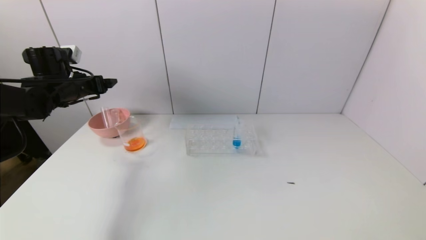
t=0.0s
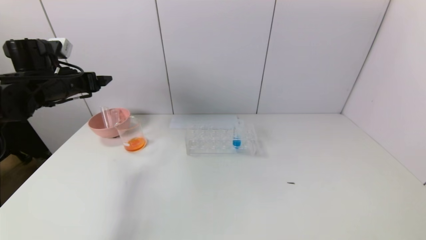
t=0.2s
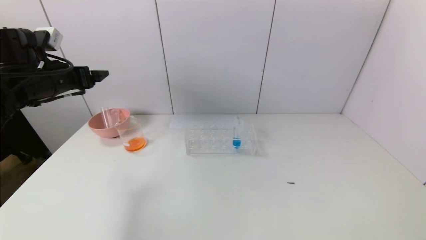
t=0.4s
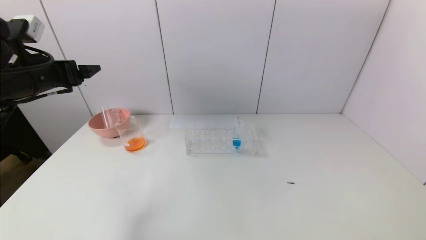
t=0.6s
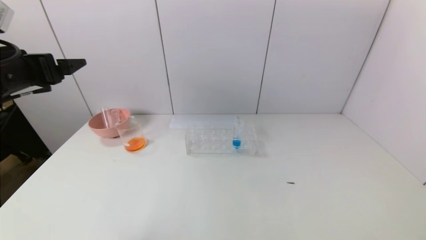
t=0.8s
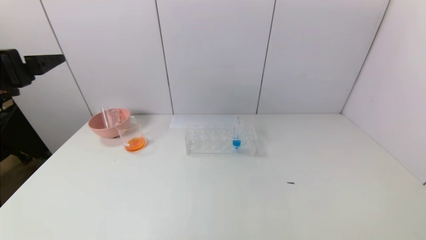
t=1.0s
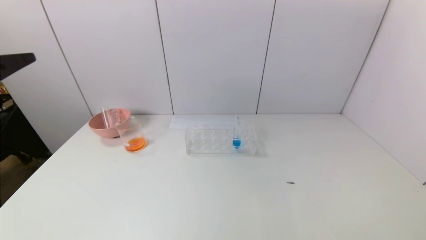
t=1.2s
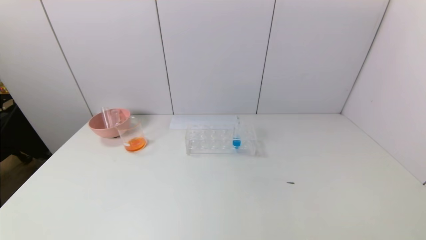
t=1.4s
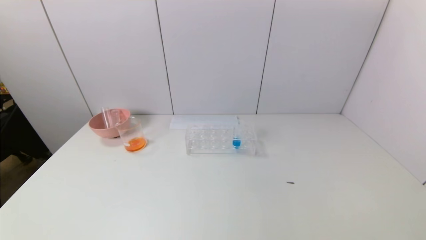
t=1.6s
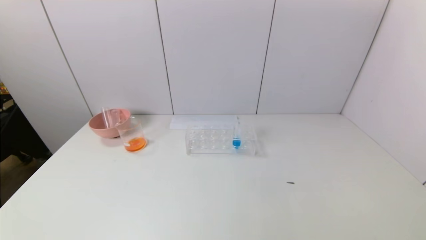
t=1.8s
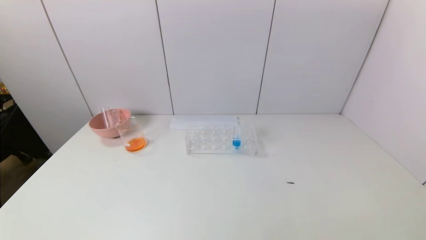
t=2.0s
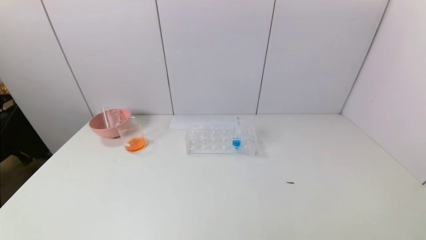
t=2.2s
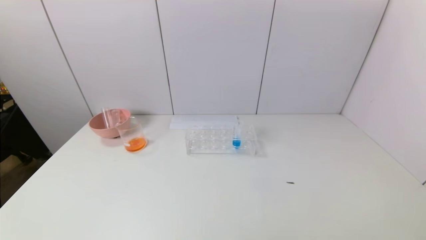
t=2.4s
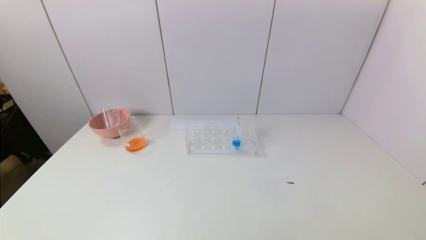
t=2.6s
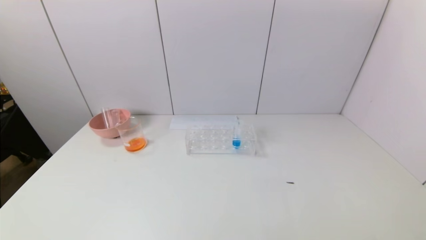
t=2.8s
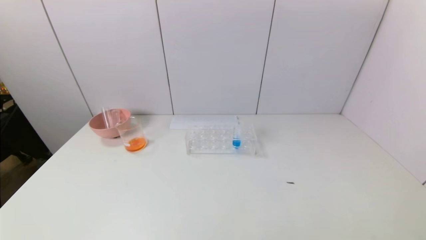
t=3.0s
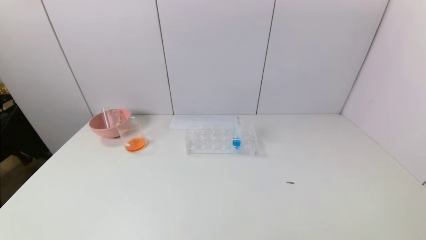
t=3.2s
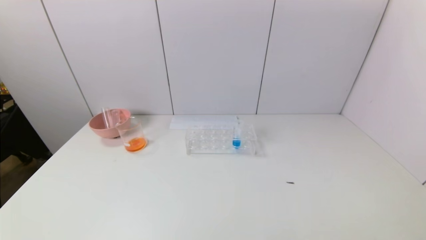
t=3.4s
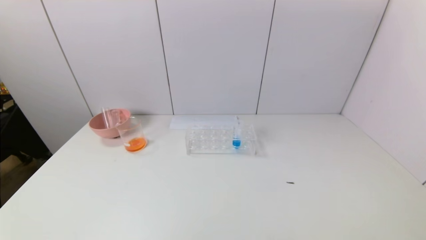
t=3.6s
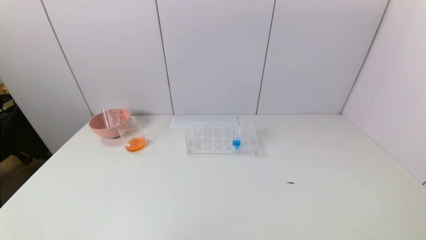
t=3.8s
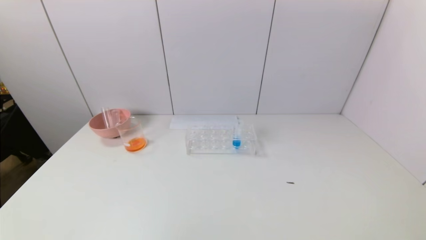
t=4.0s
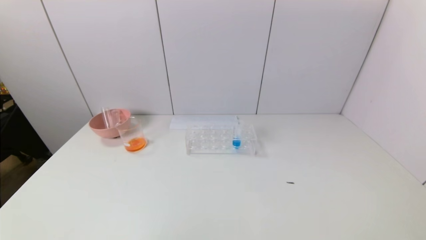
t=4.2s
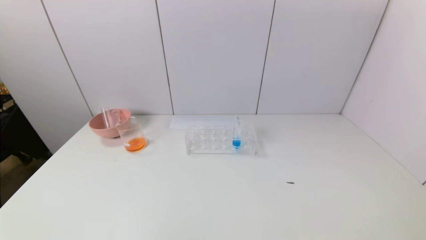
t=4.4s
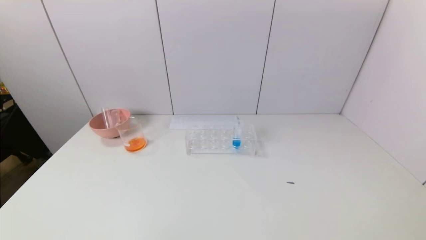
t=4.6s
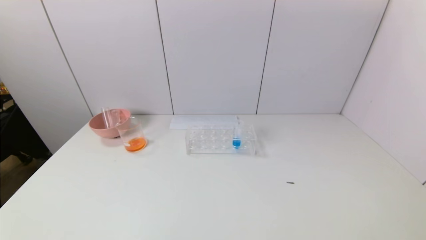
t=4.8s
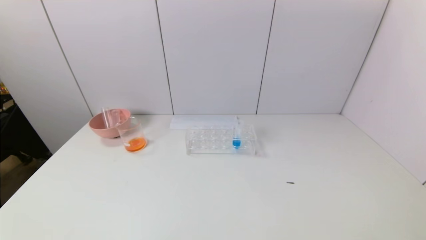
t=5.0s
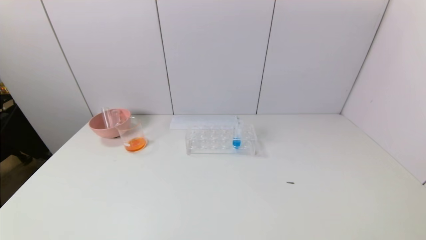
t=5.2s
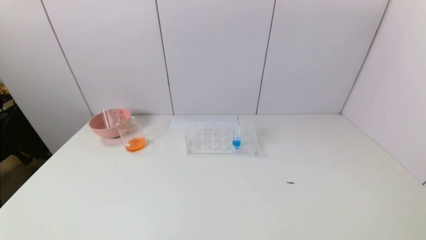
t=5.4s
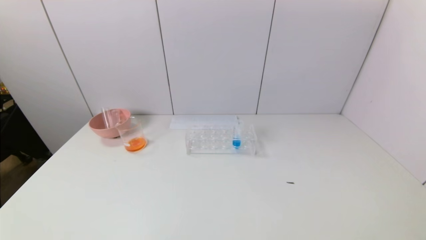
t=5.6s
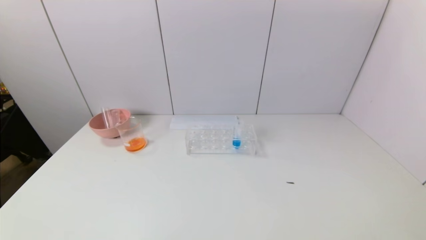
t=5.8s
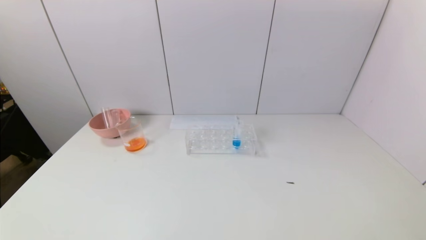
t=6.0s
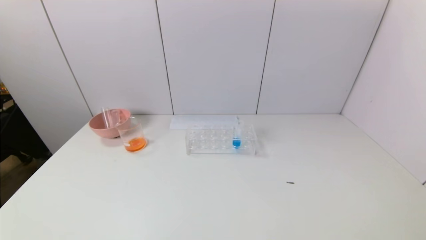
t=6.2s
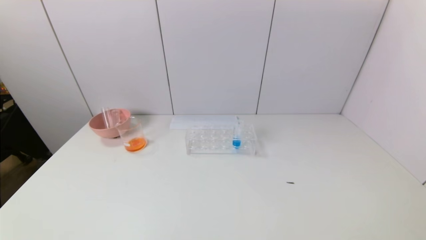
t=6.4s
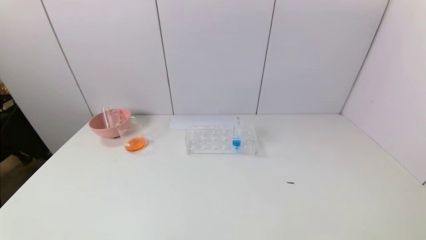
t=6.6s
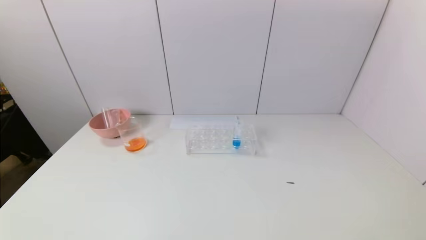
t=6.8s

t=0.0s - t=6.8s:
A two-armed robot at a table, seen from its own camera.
Task of the whole recording: pick up the test tube with yellow pigment and the test tube with red pigment by grippers and pour them into the beaker.
t=0.0s - t=1.4s: The left gripper heads backward, covering about 35 cm.
t=5.4s - t=6.8s: Both grippers stay about where they are.
